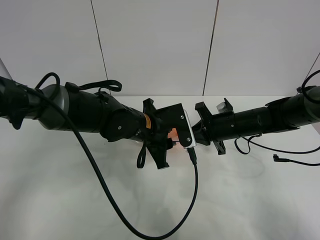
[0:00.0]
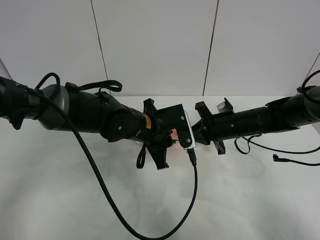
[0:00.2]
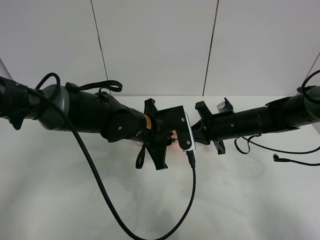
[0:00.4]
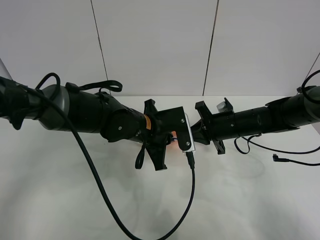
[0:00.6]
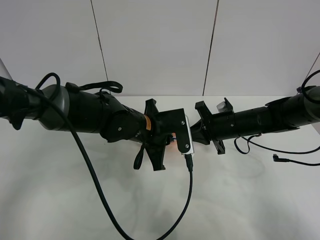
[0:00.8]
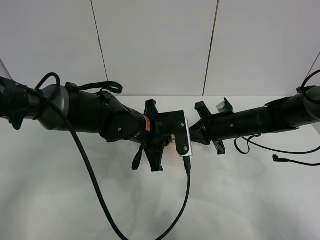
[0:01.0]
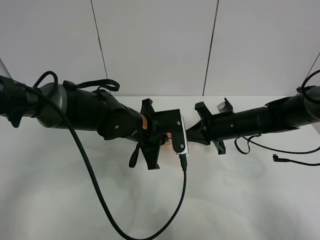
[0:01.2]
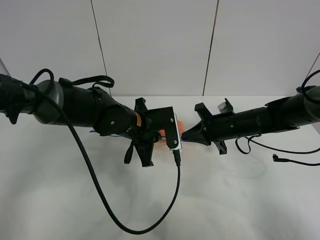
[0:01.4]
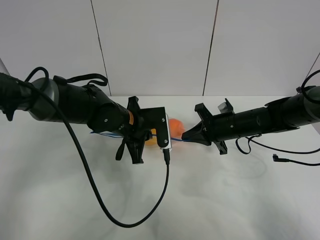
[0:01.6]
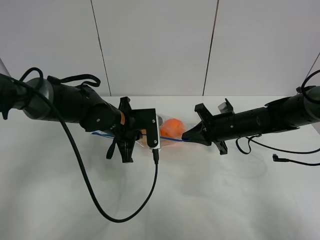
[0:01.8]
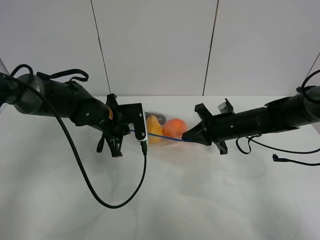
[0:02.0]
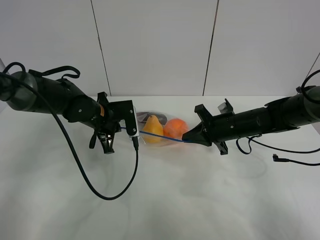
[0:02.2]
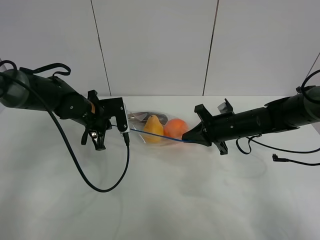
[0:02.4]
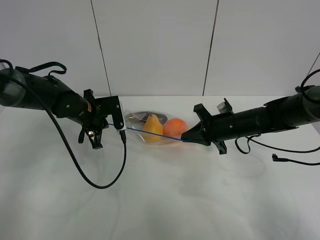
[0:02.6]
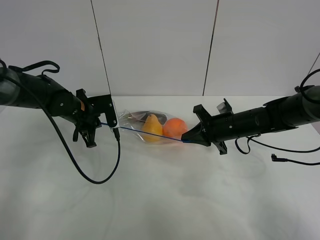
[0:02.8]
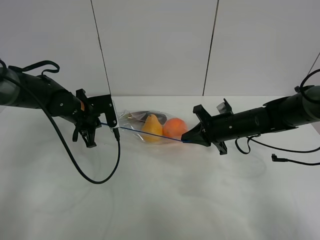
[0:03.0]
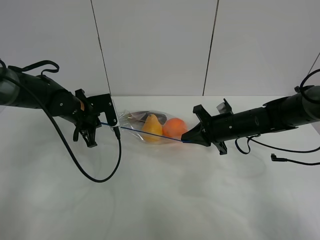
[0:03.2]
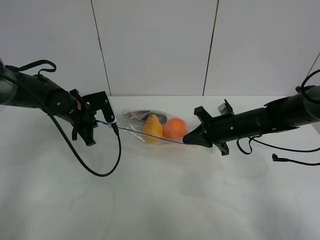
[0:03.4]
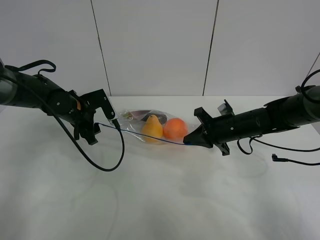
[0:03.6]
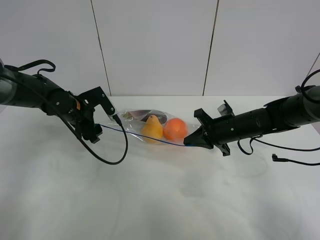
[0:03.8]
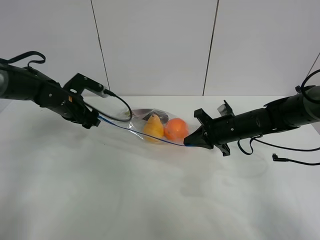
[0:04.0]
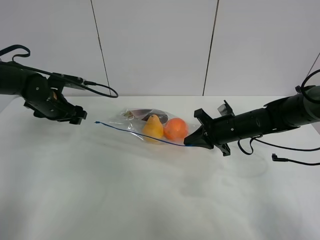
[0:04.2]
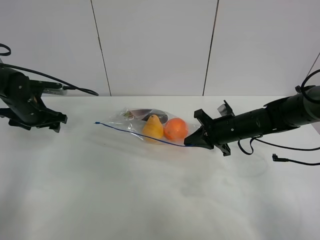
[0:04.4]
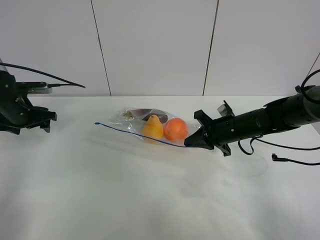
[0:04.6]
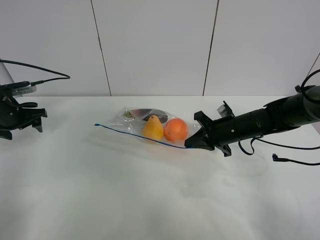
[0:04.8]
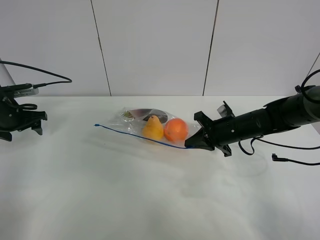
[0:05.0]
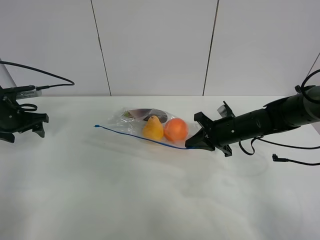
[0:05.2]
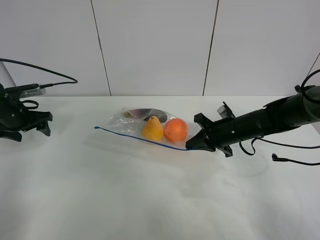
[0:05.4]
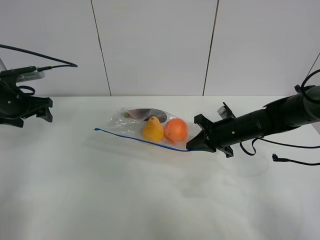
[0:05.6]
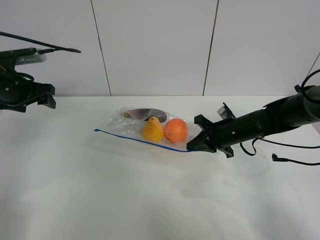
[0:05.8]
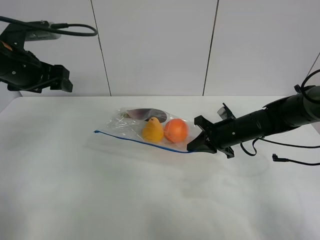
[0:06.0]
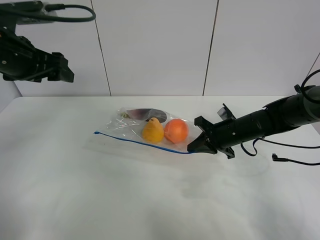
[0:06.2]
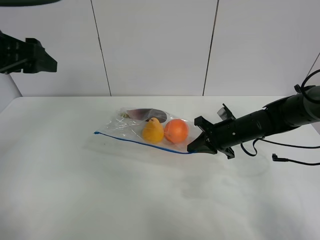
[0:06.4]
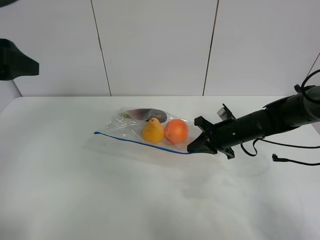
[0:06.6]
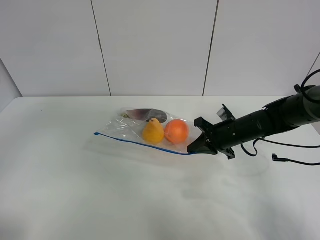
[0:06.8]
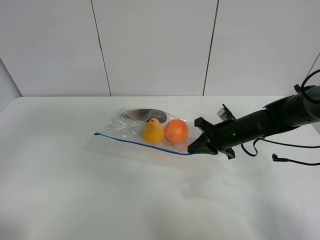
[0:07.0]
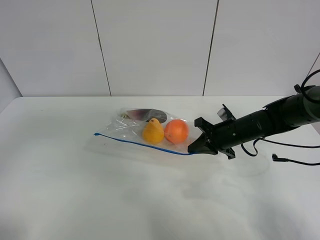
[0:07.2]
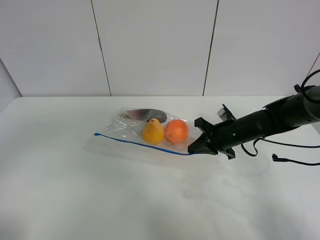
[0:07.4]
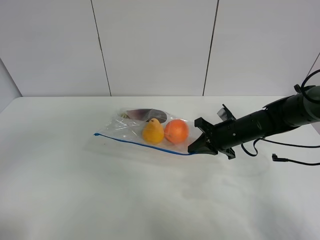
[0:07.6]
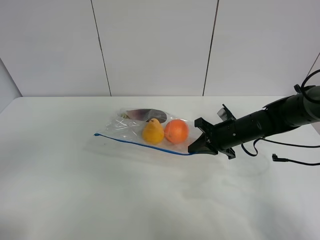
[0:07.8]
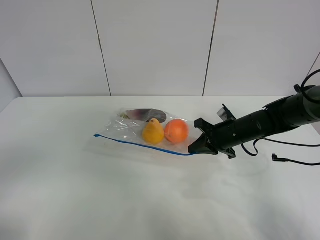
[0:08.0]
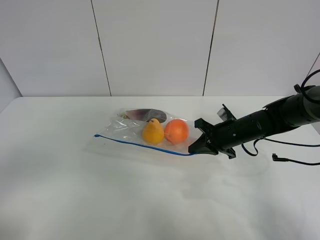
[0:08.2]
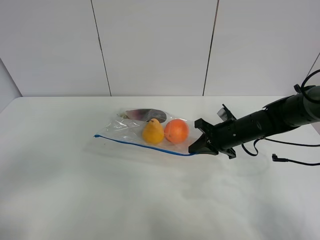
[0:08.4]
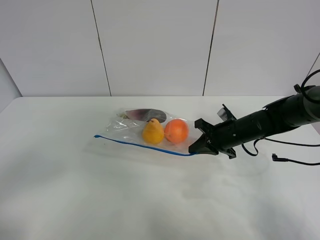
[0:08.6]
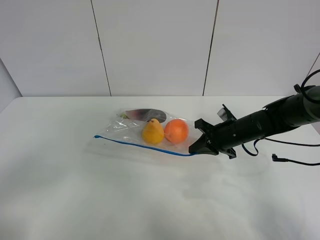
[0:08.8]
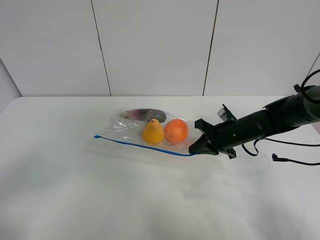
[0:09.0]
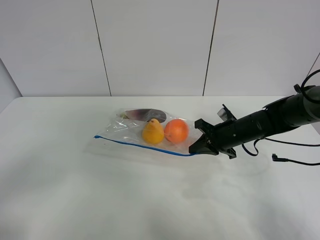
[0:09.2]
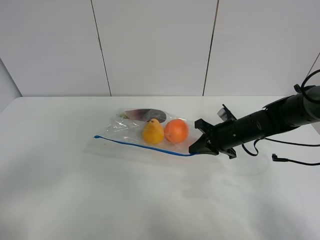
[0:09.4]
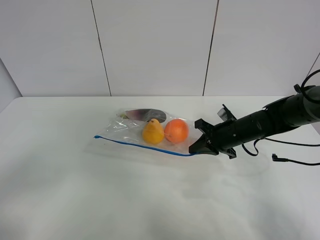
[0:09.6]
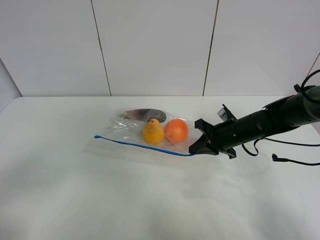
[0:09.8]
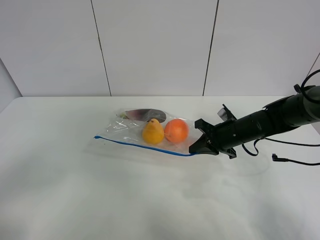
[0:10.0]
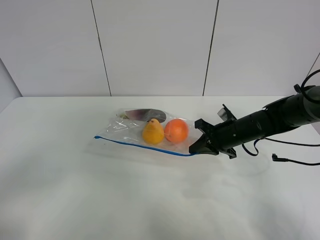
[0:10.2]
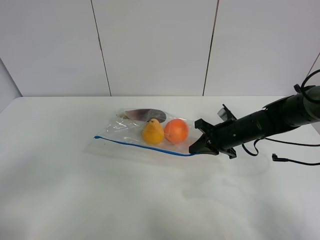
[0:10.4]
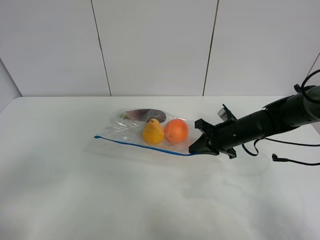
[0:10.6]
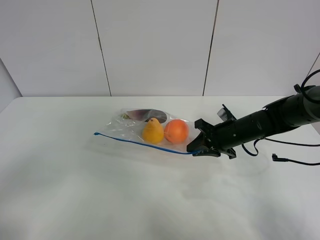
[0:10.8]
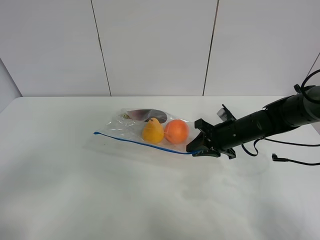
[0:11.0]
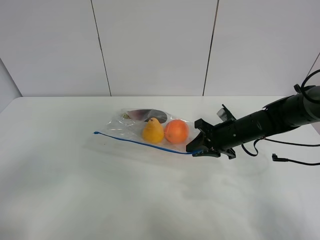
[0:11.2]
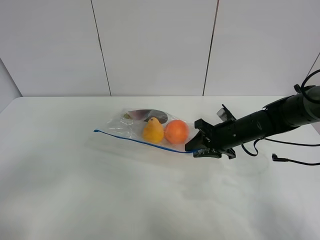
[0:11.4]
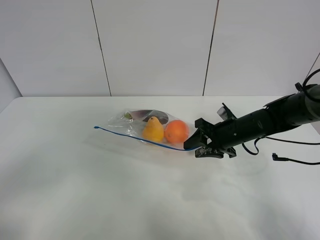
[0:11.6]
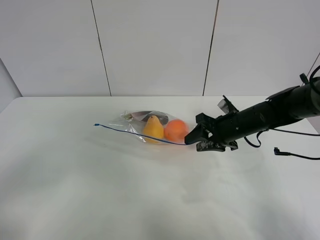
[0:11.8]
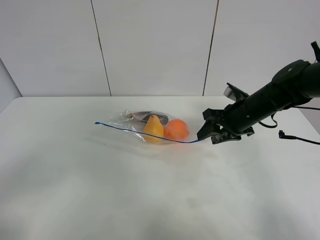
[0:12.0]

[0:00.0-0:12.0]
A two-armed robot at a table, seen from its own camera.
Step, 0:00.0 to 0:04.2: Pull the fruit bag with left gripper.
0:00.0 to 0:01.6: The left gripper moves about 5 cm, and closes its fingers.
0:01.6 to 0:03.0: The left gripper shifts some 15 cm to the left.
0:03.0 to 0:04.4: The left gripper goes roughly 15 cm to the left, and opens.
0:04.4 to 0:06.0: The left gripper heads upward, to the right and backward, covering some 15 cm.
0:06.0 to 0:07.6: The left gripper travels backward by roughly 35 cm.
0:07.6 to 0:09.0: The left gripper is displaced downward by about 10 cm.
0:09.0 to 0:10.4: Both grippers stay put.
0:10.4 to 0:12.0: The right gripper moves upward, approximately 5 cm, and opens its fingers.

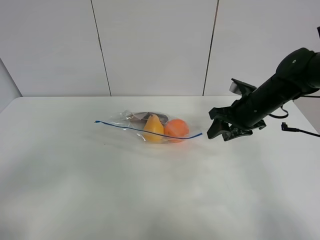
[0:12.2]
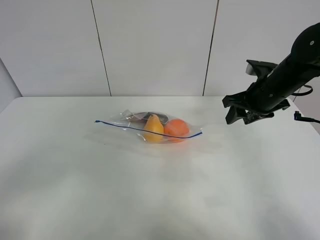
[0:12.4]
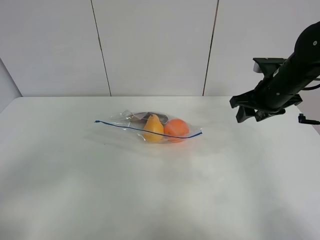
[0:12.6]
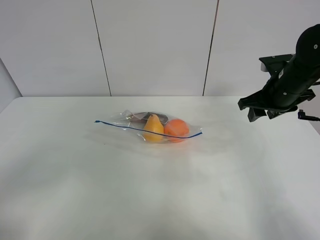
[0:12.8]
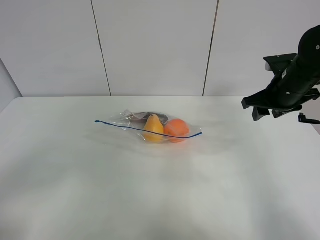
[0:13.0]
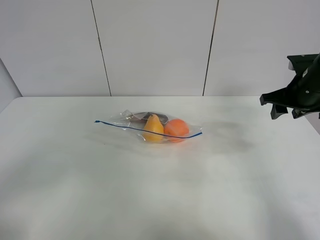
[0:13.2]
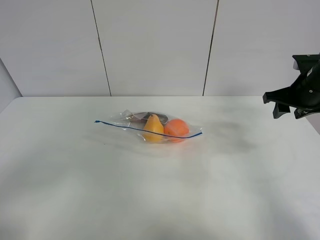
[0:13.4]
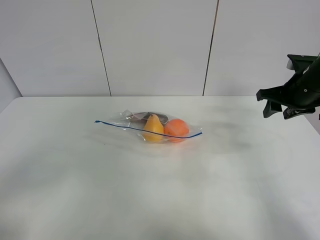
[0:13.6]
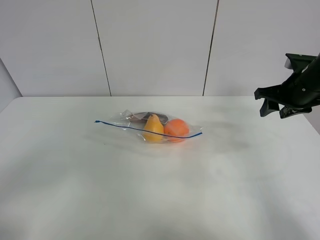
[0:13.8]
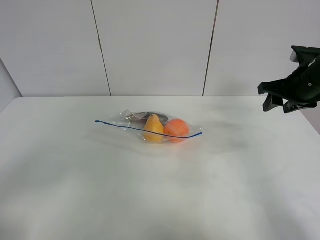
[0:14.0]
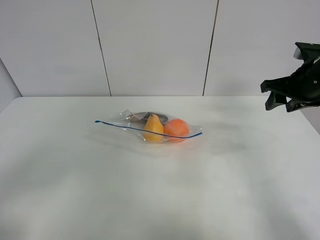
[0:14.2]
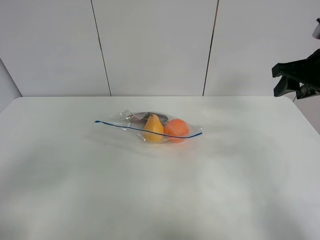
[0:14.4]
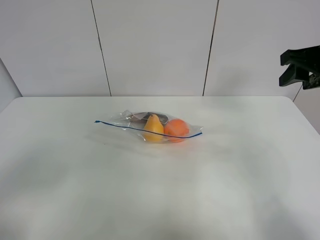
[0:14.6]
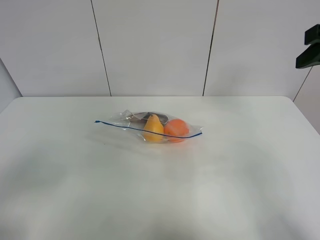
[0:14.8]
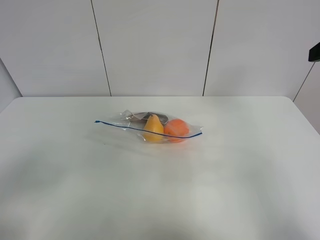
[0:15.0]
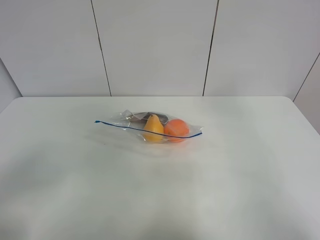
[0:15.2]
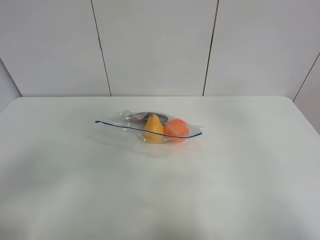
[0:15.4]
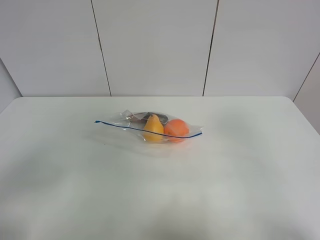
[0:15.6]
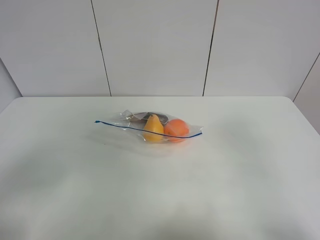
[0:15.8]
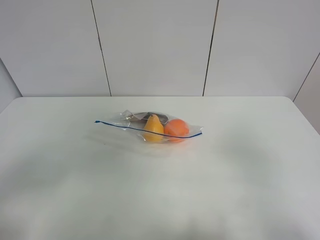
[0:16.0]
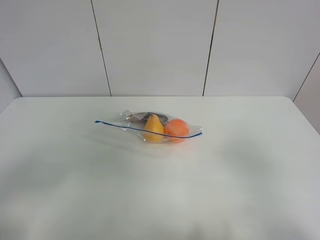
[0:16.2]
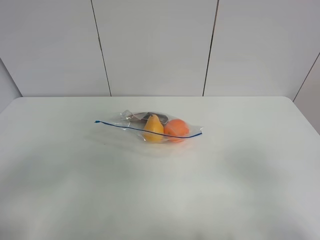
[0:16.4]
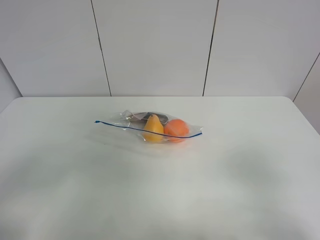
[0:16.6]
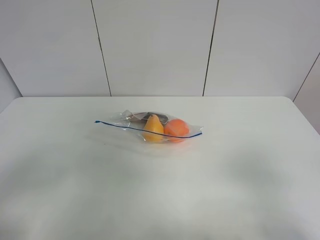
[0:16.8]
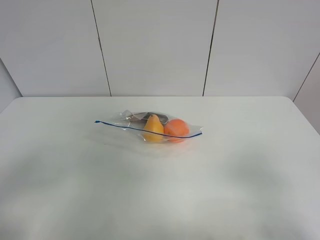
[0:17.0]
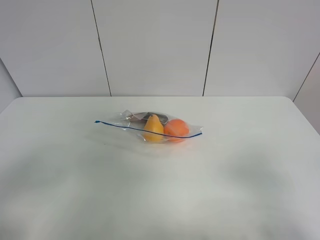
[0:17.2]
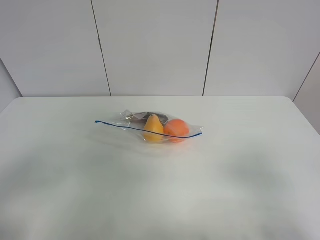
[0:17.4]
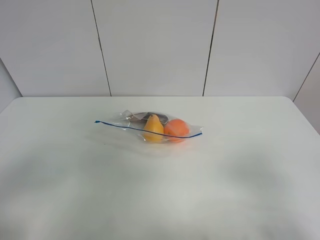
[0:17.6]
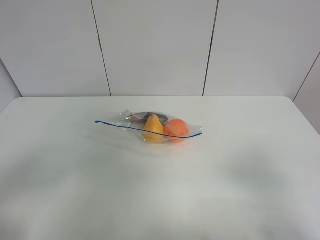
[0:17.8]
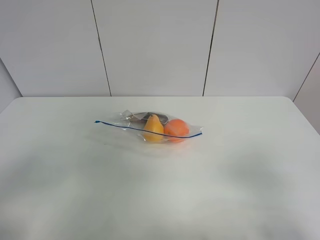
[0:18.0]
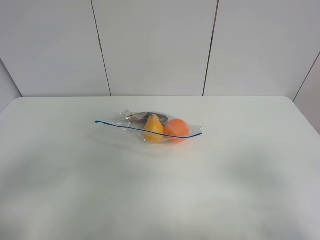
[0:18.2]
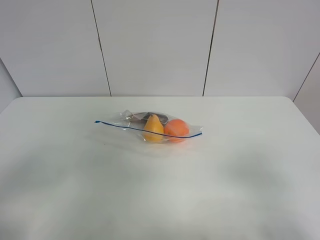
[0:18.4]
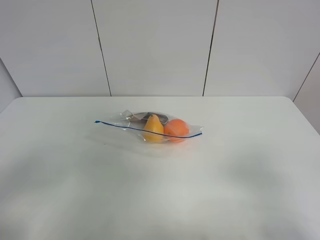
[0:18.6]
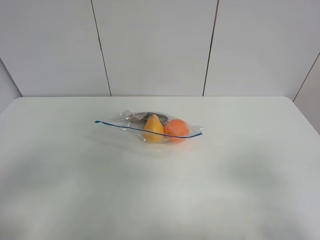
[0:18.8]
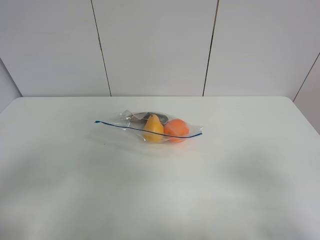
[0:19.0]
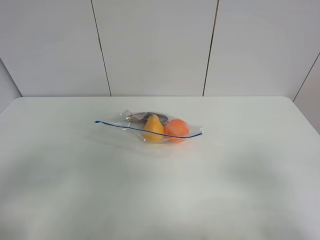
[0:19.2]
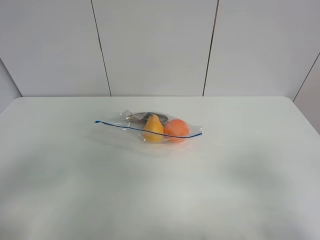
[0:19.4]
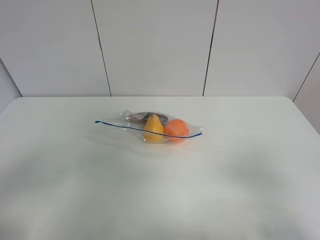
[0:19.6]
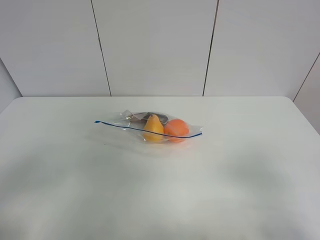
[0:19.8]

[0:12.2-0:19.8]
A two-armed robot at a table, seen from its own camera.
0:12.2 to 0:13.8: The right gripper is displaced to the right by some 10 cm.
0:13.8 to 0:15.2: The right gripper moves backward and upward, roughly 25 cm.
0:15.2 to 0:16.8: The right gripper shifts some 20 cm backward and downward.
0:16.8 to 0:19.8: Neither gripper changes place.

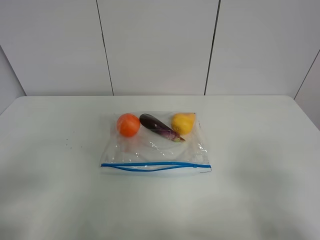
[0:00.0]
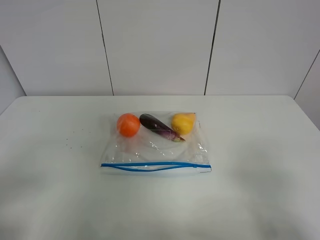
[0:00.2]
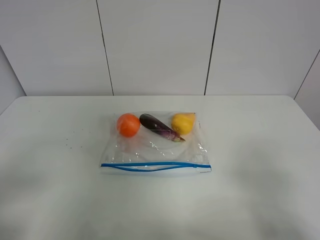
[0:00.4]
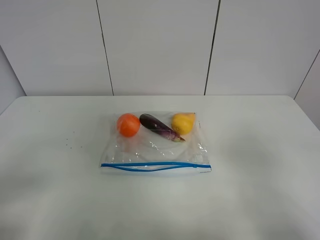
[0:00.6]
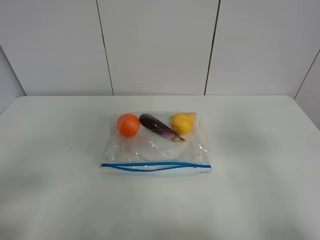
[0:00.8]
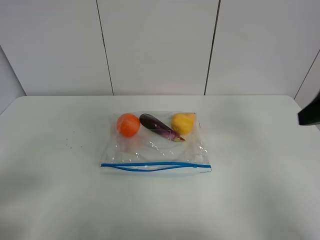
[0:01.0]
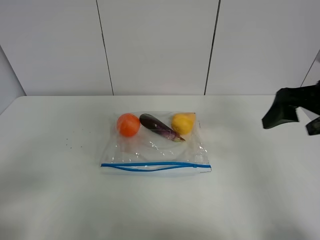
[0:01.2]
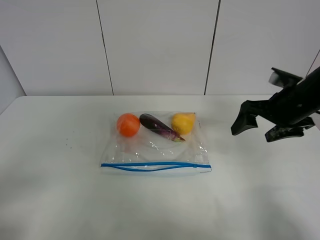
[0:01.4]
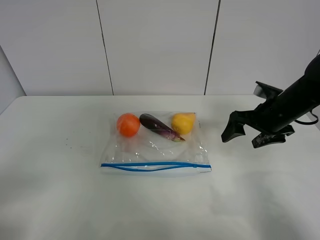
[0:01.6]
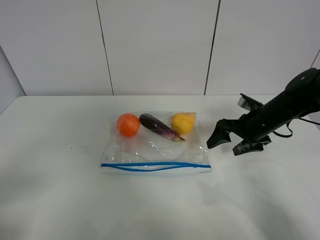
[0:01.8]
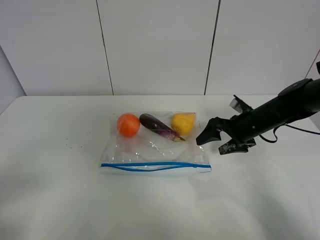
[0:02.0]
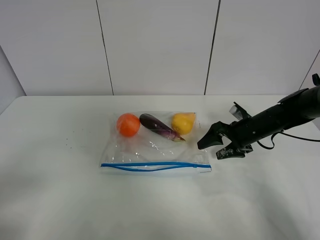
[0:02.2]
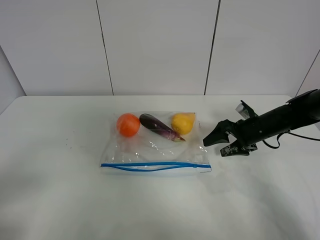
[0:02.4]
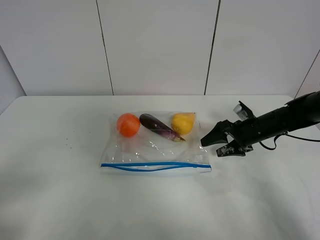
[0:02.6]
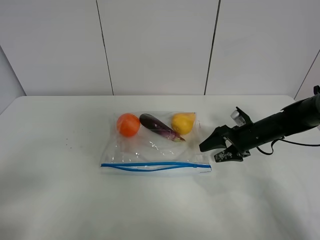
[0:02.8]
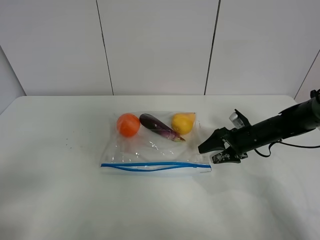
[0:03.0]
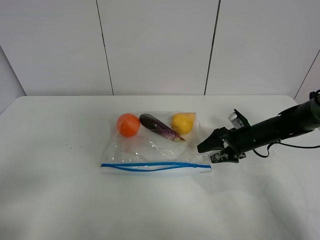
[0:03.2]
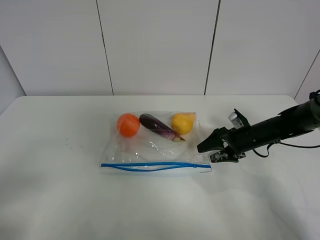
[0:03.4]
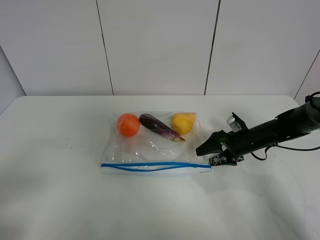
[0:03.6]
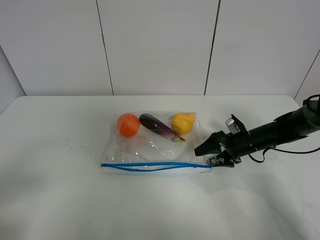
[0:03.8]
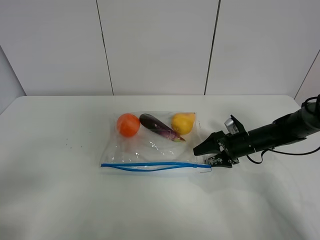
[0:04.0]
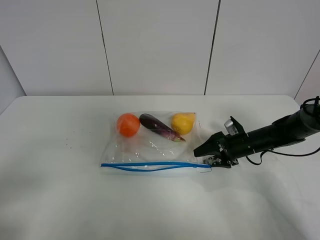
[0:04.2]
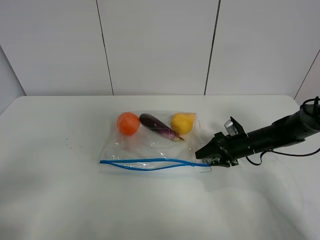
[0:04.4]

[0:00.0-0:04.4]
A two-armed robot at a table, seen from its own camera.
0:00.0 to 0:01.4: The right gripper is displaced forward by roughly 30 cm.
0:01.4 to 0:03.0: The right gripper heads downward, covering approximately 15 cm.
0:03.0 to 0:04.4: The right gripper closes its fingers.
